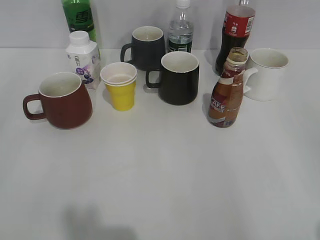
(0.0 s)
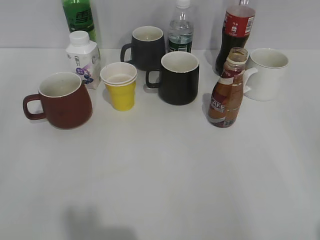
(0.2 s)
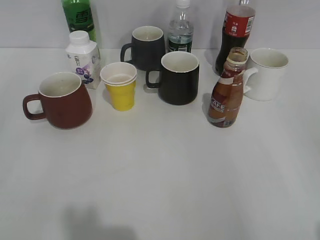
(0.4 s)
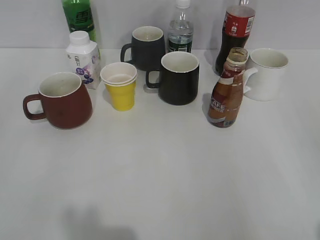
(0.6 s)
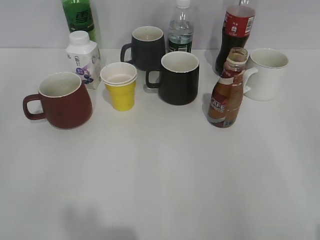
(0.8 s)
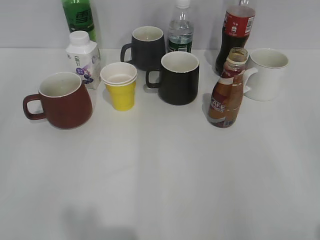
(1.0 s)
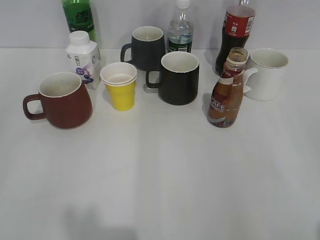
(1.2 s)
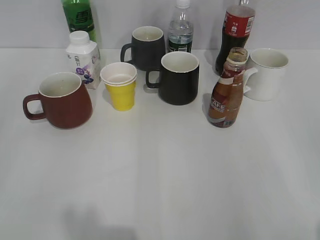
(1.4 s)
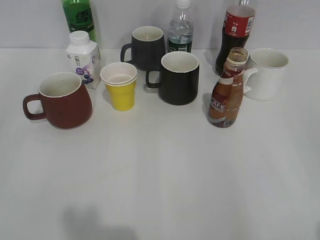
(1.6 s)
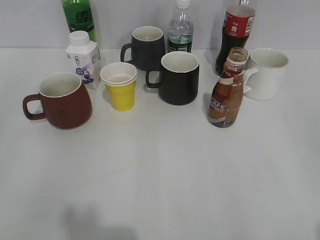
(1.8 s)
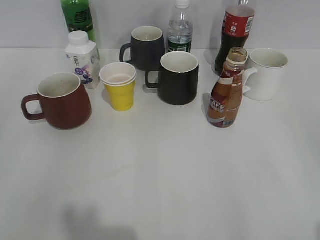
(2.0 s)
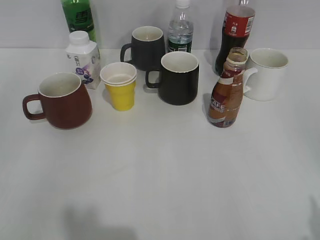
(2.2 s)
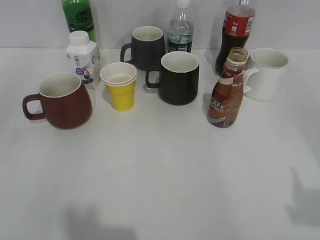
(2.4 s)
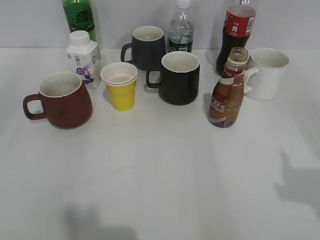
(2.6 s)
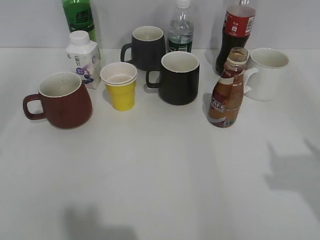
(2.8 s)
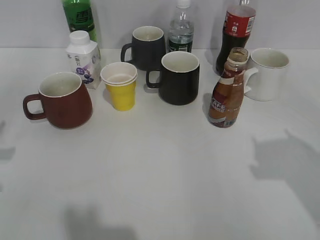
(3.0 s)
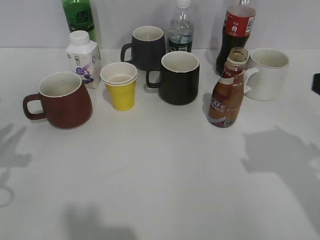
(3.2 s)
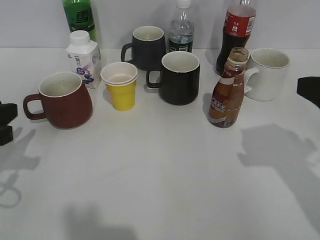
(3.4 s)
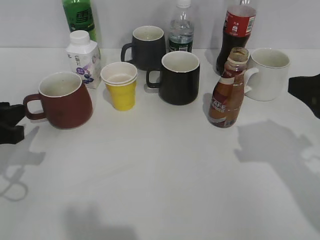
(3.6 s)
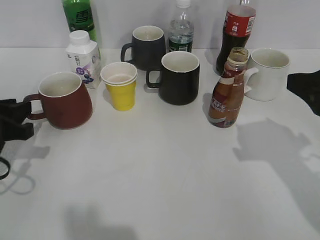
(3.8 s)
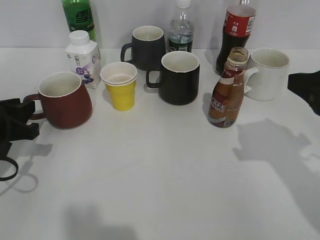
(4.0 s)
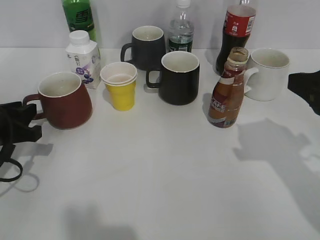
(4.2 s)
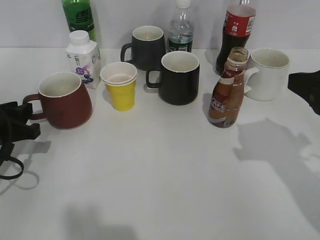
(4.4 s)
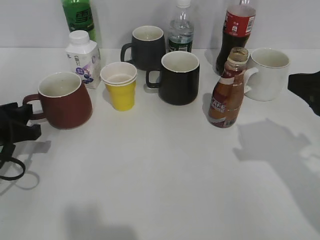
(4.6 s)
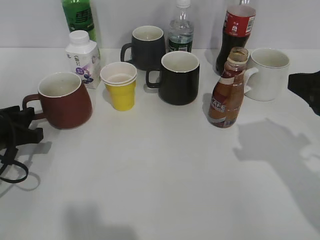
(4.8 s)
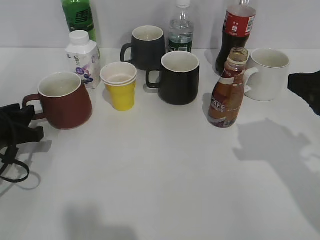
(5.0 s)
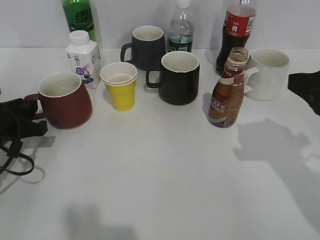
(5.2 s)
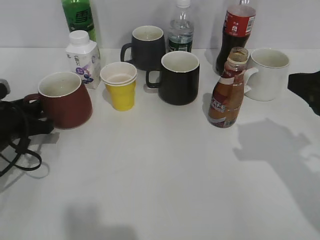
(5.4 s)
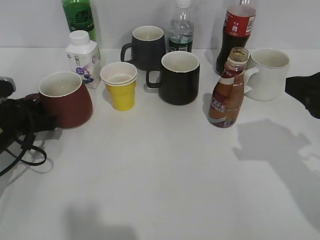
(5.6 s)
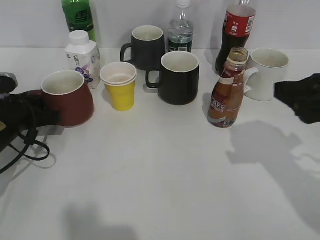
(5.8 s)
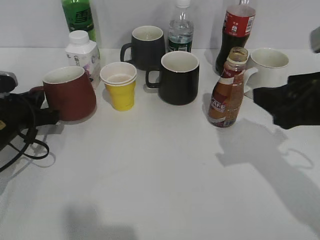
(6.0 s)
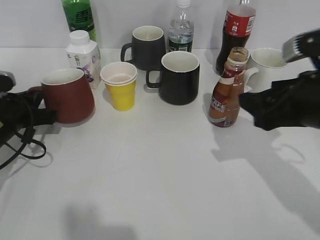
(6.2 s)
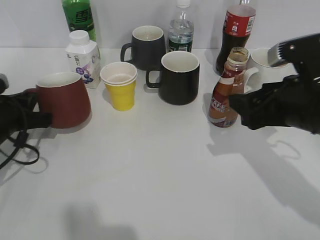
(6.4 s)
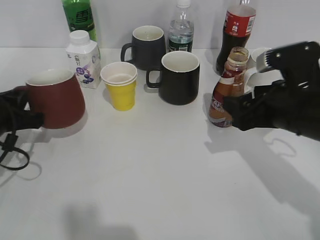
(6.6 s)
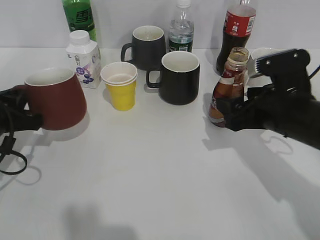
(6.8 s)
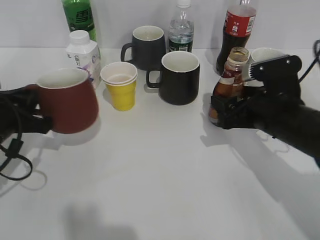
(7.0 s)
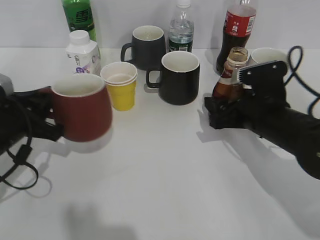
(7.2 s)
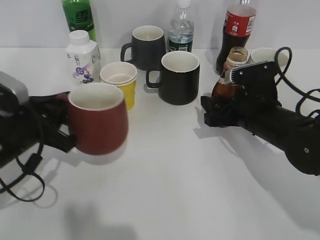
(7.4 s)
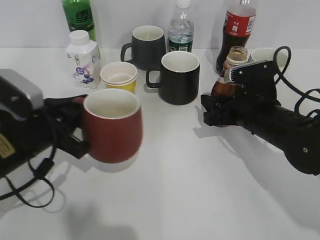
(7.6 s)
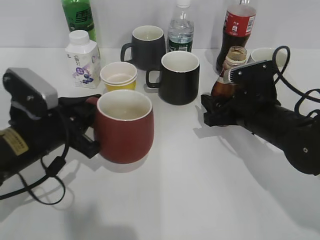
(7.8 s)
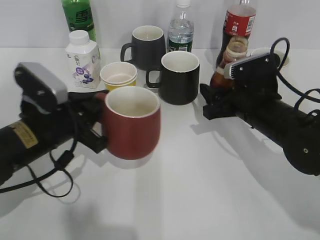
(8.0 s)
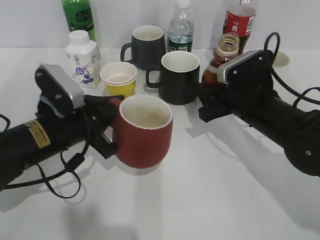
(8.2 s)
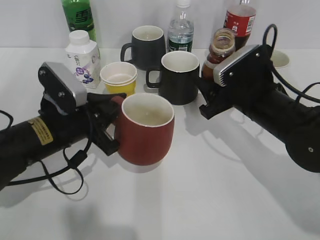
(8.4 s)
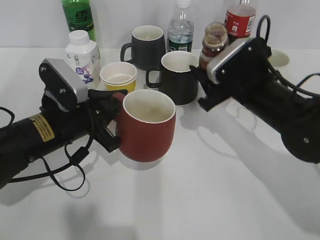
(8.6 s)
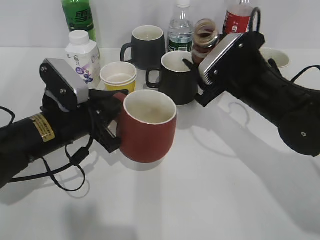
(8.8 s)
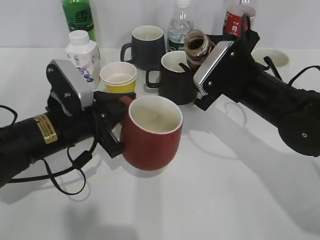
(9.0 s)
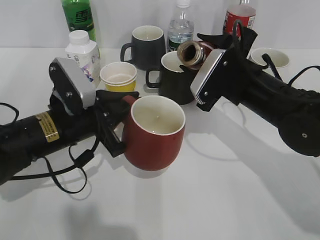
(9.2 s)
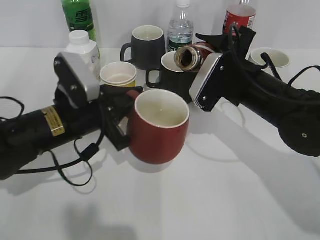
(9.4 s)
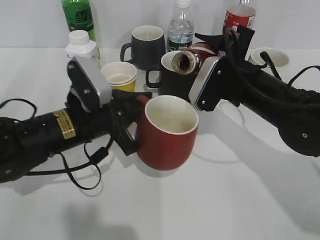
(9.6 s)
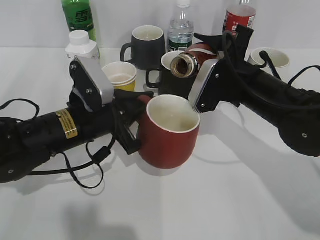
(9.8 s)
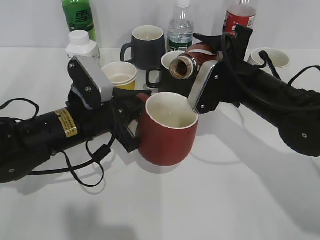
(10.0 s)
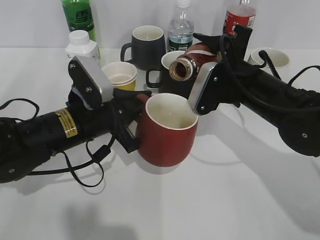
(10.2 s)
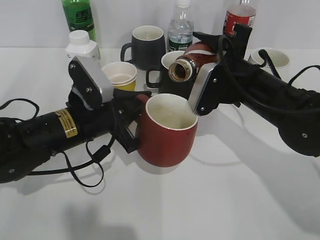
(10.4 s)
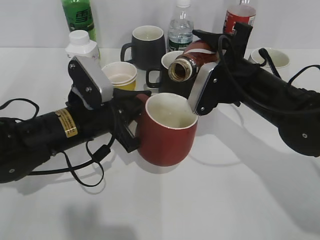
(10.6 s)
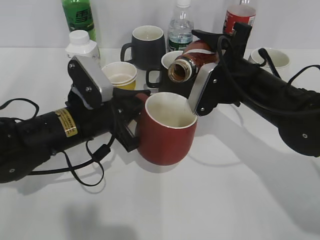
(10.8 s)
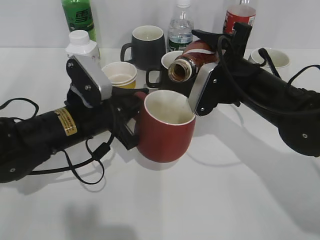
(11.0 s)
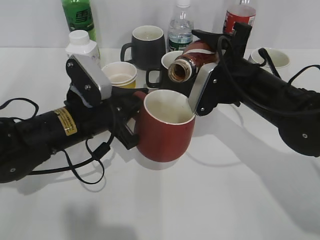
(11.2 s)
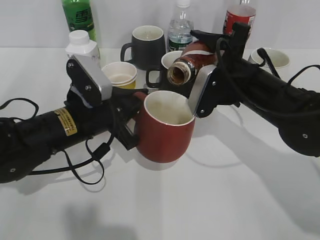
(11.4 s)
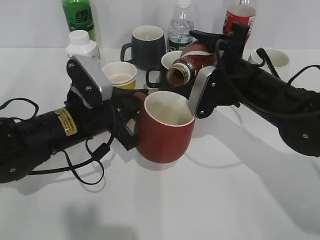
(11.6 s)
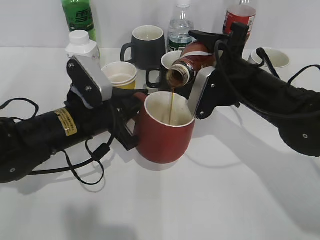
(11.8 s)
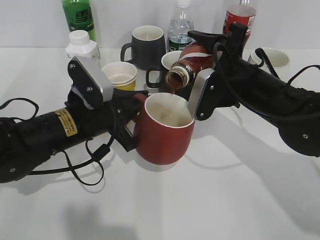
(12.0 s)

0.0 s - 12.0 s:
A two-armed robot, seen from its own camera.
Step, 1.8 s - 5.8 s: Grasp the red cup with left gripper.
Step, 6.2 s - 7.6 s: Grasp the bottle with coffee with right gripper.
1.6 s - 3.0 s: The right gripper is displaced forward by roughly 15 cm.
3.0 s - 4.4 s: The left gripper is displaced downward and forward by approximately 10 cm; the right gripper is displaced forward by roughly 5 cm.
4.4 s - 6.0 s: The left gripper moves forward, about 5 cm, and closes.
6.0 s - 7.6 s: The left gripper is displaced backward and to the right by approximately 10 cm; the right gripper is displaced downward and forward by some 15 cm.
7.6 s - 9.0 s: The right gripper is displaced upward by about 5 cm; the left gripper moves to the right, approximately 5 cm.
10.4 s - 12.0 s: There are only small adjustments of the grippers.

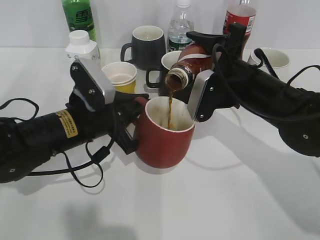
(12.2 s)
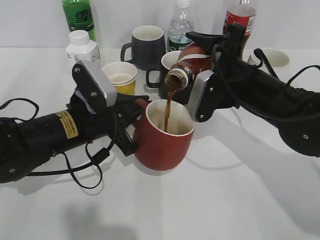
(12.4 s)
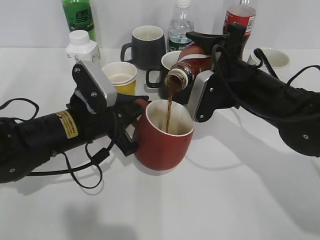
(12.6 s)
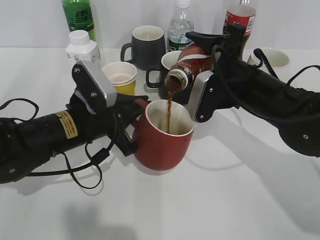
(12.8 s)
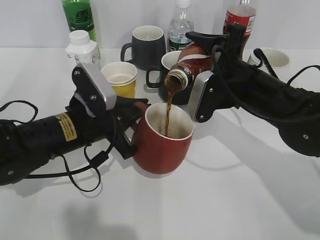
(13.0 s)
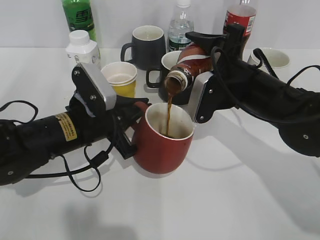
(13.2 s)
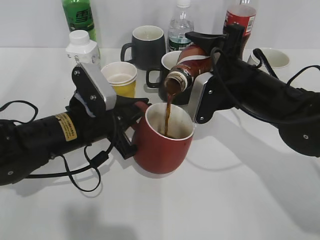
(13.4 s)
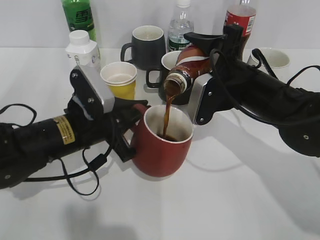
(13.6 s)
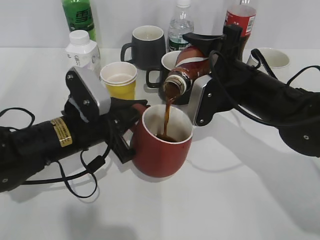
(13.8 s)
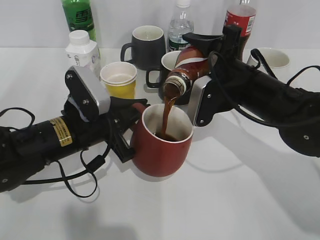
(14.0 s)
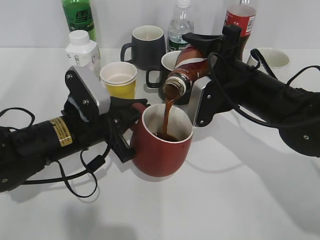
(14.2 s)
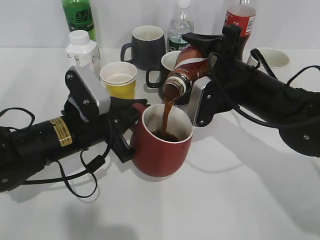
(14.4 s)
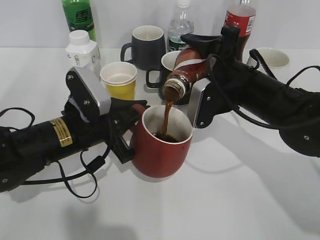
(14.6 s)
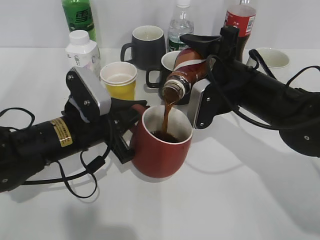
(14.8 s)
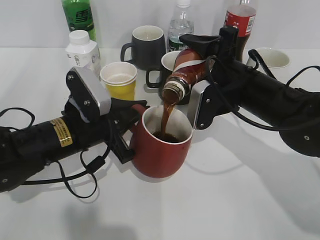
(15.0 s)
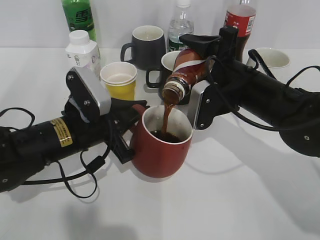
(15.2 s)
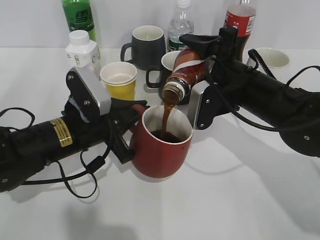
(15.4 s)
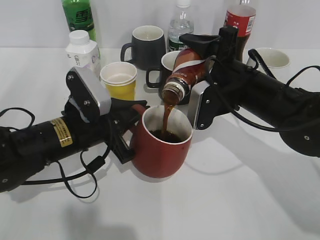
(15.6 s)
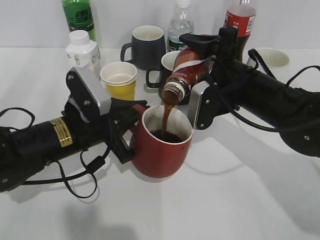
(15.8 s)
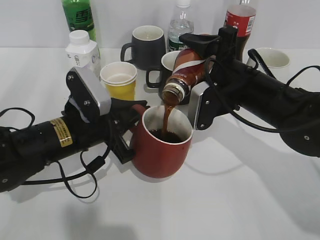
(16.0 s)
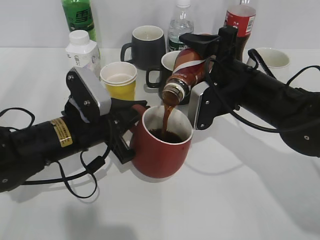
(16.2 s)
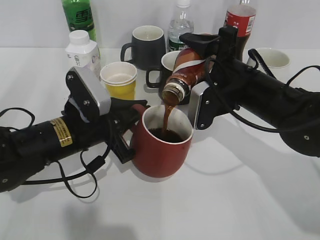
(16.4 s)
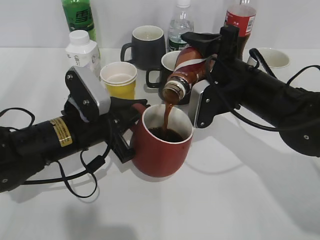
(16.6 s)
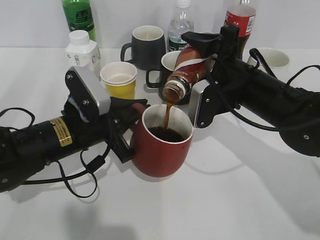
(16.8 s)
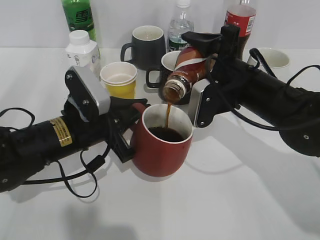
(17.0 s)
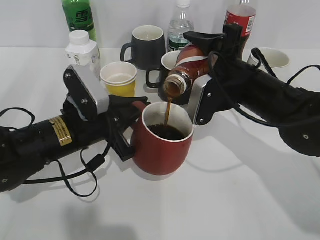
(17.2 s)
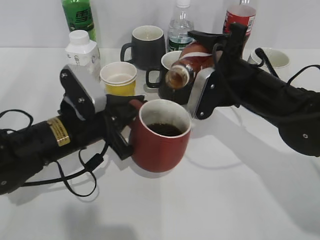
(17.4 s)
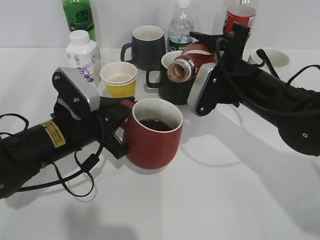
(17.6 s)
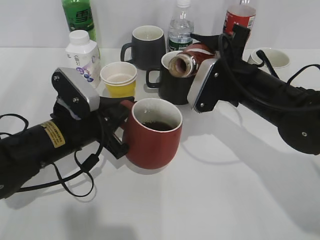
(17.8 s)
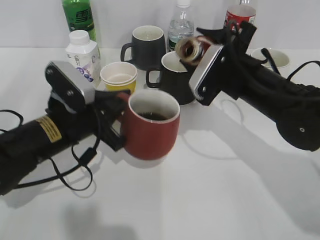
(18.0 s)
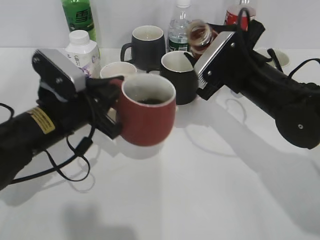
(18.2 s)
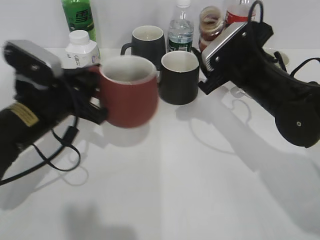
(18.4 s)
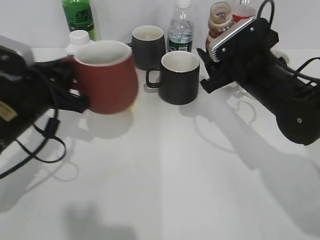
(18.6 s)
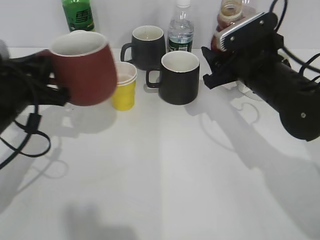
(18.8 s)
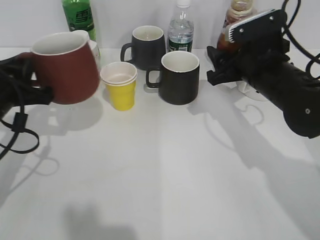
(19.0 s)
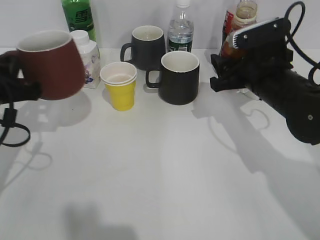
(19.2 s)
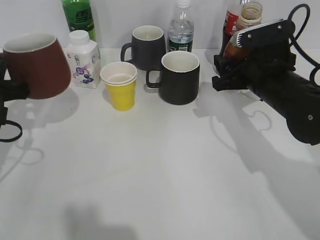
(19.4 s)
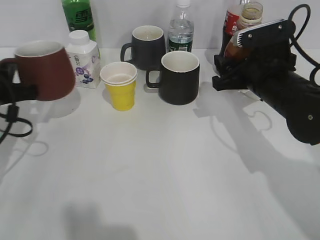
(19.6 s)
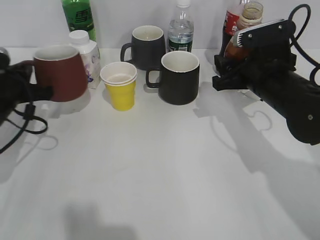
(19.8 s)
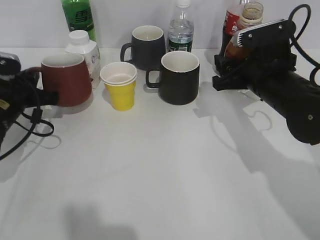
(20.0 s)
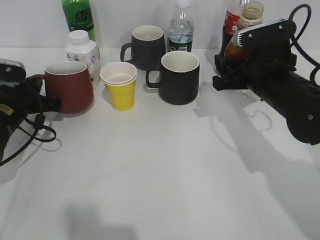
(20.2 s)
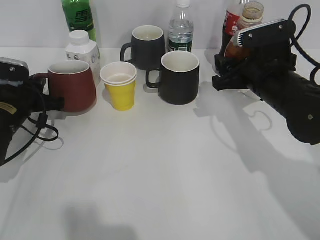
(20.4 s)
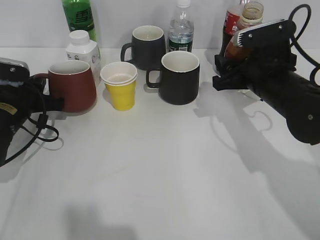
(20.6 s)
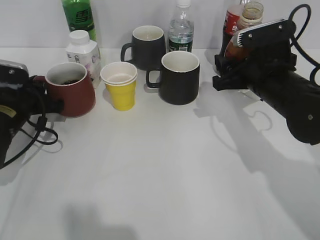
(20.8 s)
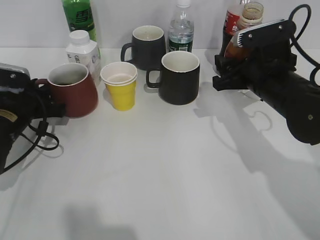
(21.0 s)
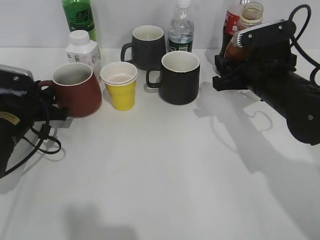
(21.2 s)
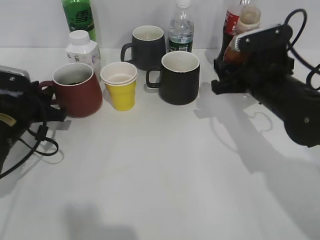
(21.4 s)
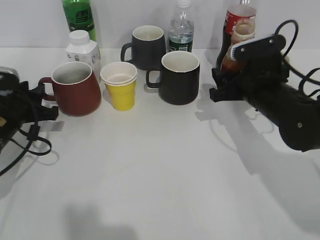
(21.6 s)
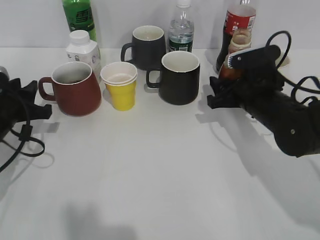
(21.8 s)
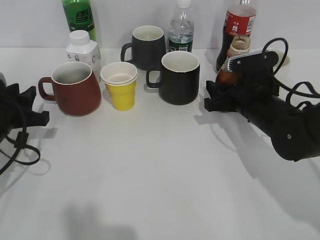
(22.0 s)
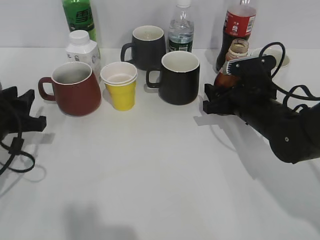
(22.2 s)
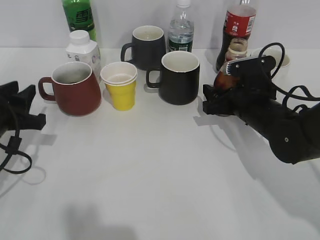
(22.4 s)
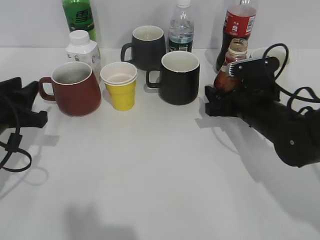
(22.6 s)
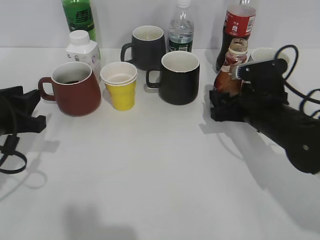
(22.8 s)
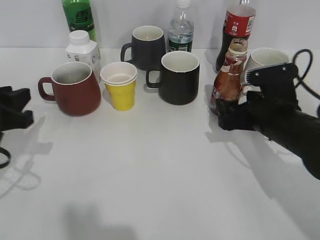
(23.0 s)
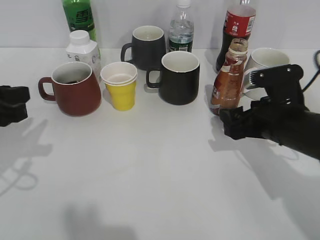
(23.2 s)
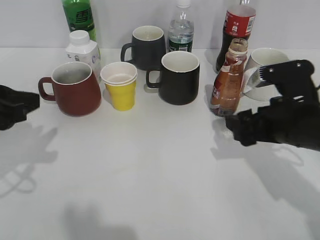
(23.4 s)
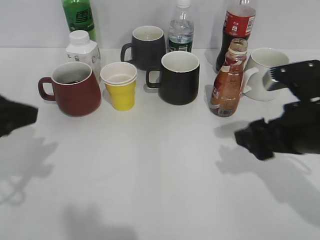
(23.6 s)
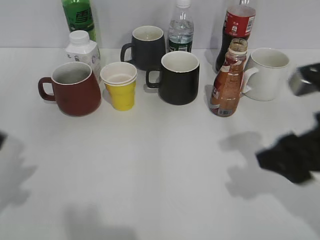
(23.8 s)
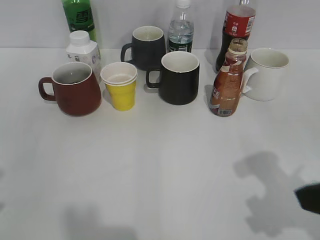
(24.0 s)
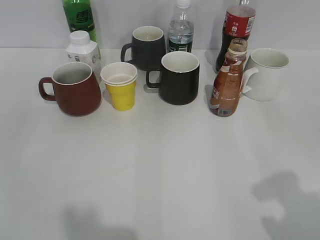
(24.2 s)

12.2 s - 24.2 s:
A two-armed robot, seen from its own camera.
Step, 12.2 s - 17.6 s: Pour the coffee from bottle to cup with right gripper.
Step, 17.8 s - 21.6 s: Place the red cup on the table with left gripper.
Step, 21.8 s - 23.2 s: Place the coffee bottle on the table with right gripper.
12.2 s - 13.8 s: The two grippers keep their place.
13.8 s - 15.2 s: The two grippers keep their place.
15.2 s - 16.6 s: Both grippers stay put.
18.2 s - 19.8 s: The left gripper is displaced to the left and forward by some 15 cm.
19.8 s - 21.2 s: The left gripper opens up.
21.2 s - 22.6 s: The left gripper shifts about 5 cm backward; the right gripper travels downward by about 5 cm.
22.6 s - 24.2 s: Both grippers move backward and upward, some 25 cm.
